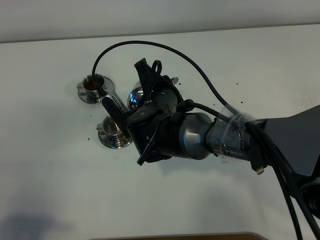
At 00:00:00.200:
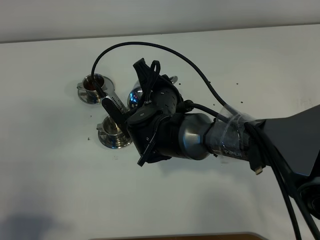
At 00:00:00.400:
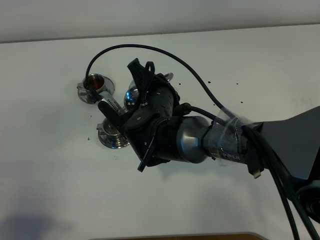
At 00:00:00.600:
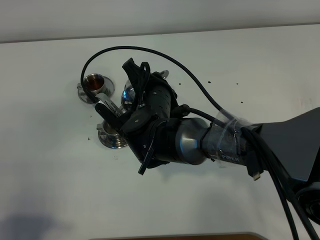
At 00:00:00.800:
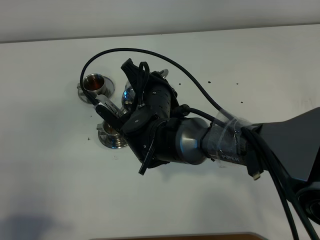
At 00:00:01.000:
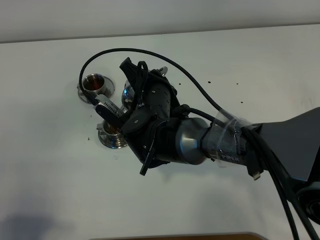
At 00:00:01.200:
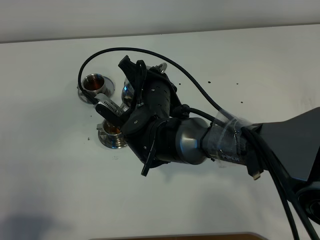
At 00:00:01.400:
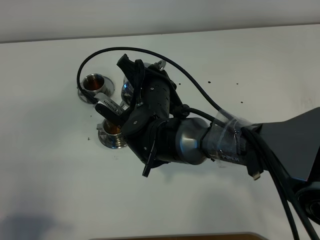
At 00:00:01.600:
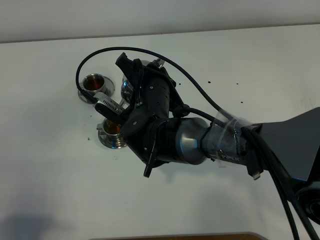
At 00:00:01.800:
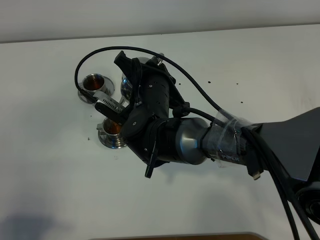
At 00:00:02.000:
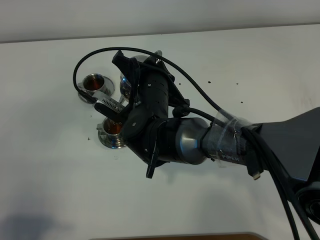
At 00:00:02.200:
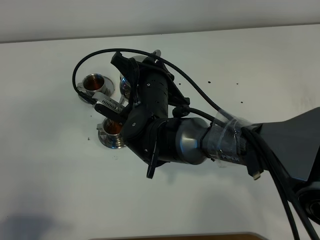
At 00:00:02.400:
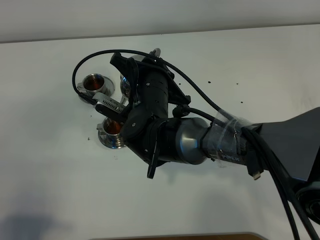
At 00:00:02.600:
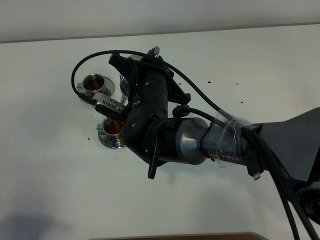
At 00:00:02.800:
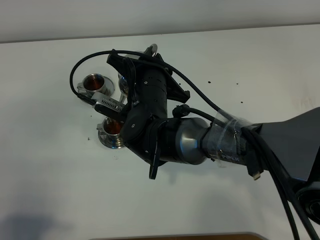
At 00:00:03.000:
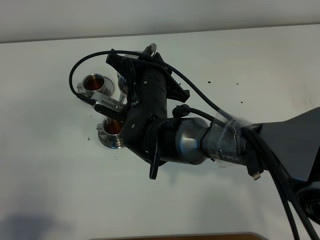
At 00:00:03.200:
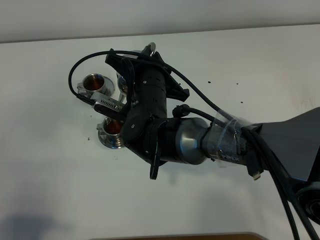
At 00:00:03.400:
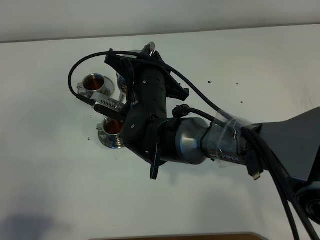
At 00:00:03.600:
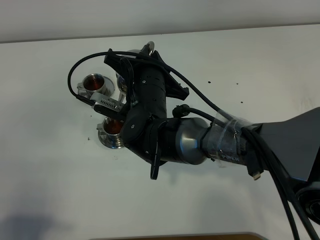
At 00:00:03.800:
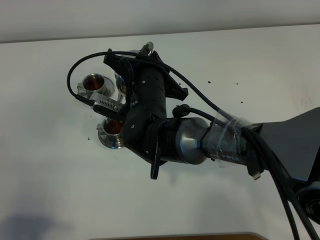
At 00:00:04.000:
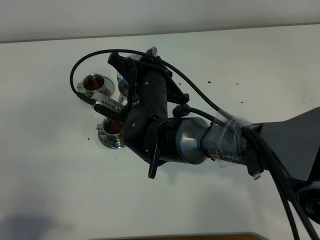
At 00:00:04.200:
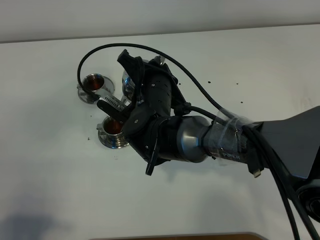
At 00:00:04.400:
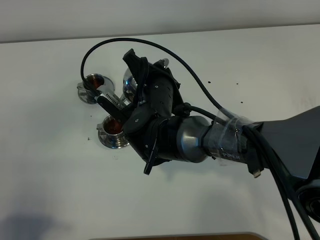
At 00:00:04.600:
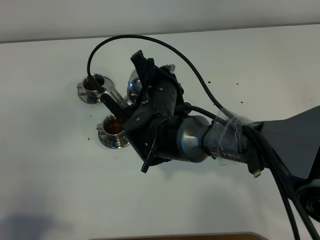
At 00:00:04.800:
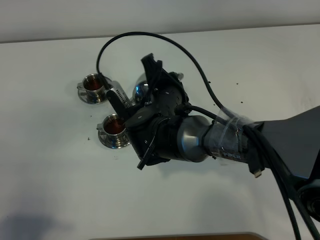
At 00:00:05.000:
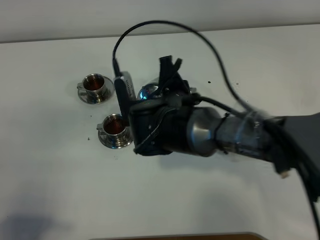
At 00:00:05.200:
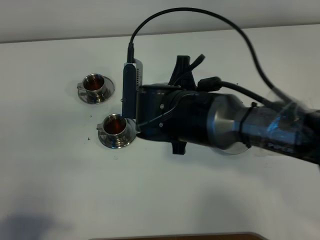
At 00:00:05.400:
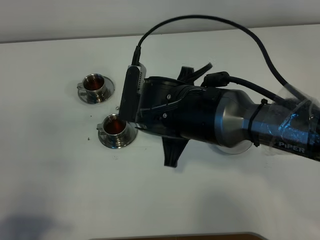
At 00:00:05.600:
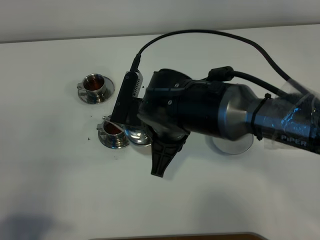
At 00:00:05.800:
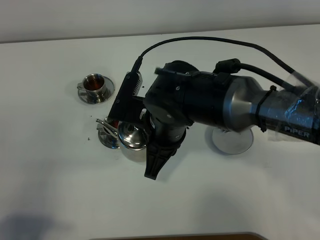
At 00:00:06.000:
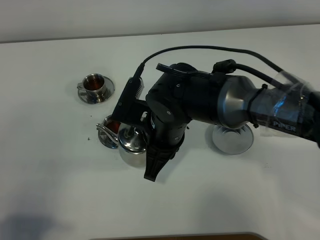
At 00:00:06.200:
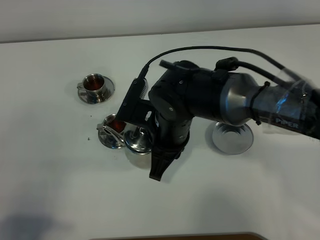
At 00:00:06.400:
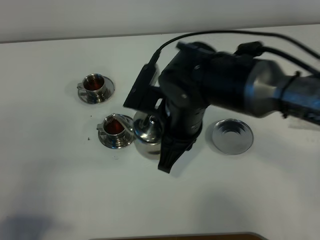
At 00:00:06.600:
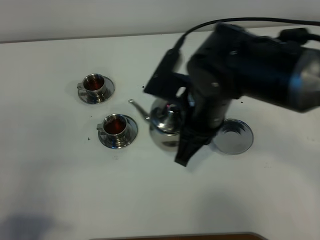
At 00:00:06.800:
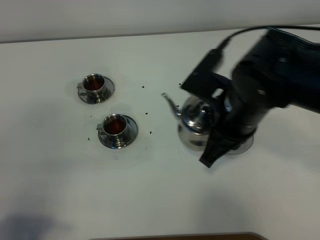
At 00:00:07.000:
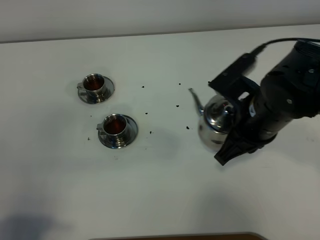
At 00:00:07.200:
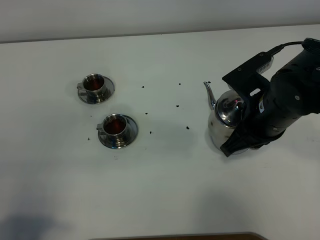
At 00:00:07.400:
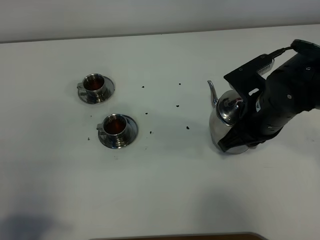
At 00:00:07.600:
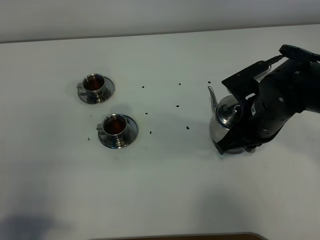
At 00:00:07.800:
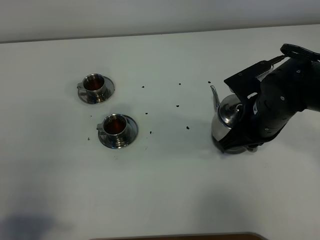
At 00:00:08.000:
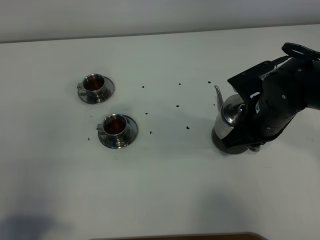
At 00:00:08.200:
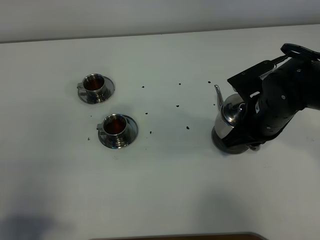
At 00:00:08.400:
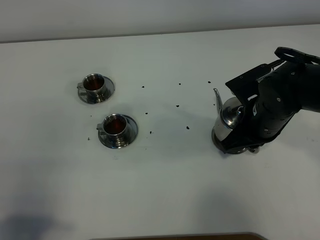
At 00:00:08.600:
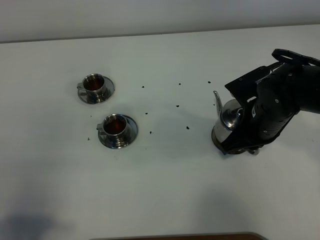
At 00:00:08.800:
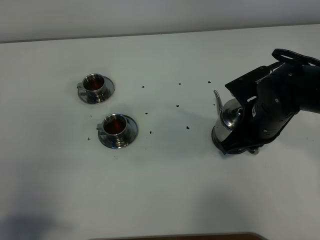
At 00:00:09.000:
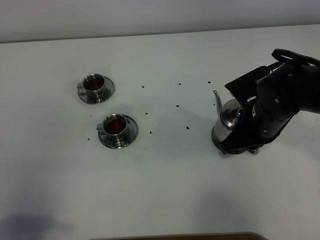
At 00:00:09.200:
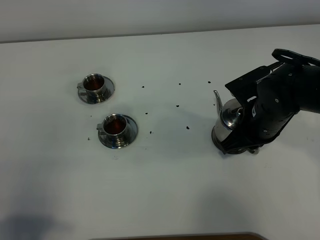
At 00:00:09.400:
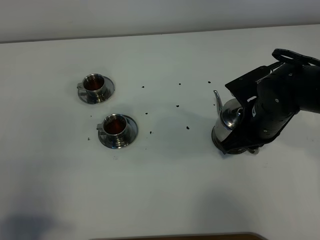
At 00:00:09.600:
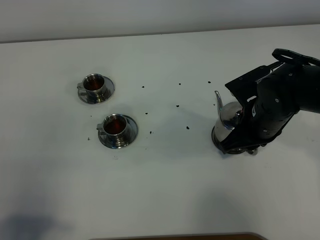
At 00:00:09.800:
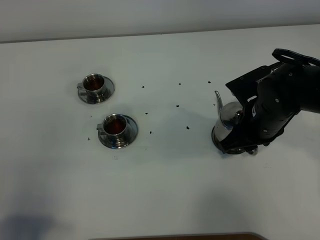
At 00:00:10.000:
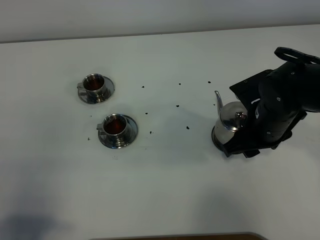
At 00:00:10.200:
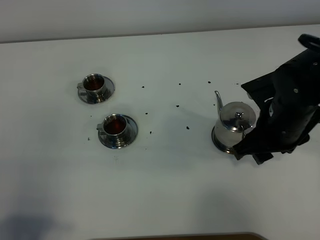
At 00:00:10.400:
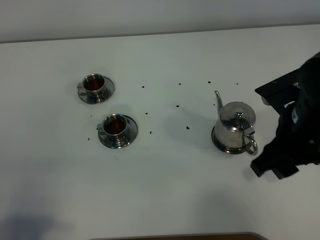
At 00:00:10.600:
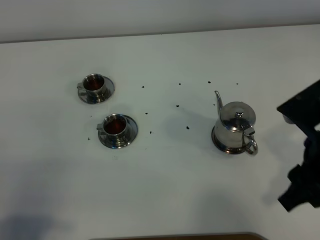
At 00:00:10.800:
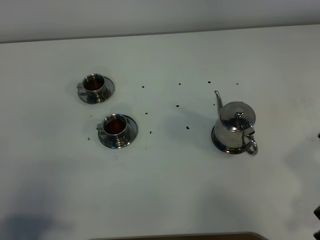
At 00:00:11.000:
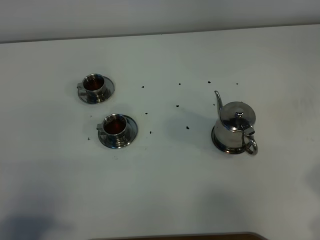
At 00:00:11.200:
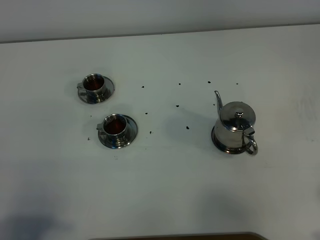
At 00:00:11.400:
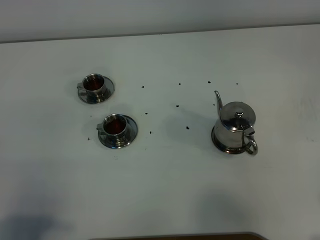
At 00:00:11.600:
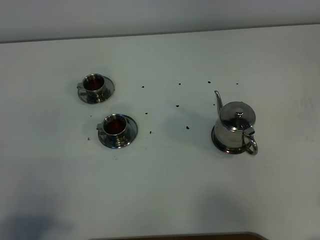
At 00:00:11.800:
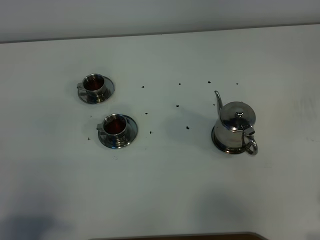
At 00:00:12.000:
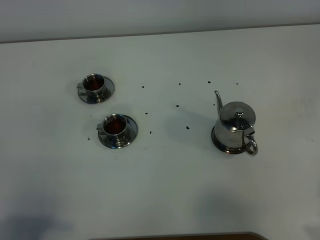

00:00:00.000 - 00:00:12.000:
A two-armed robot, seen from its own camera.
Task of the whole recording: grasp the stainless steel teapot and pour the tea into the two stainless steel teacups one by one, put the stainless steel teapot back in its original place.
Step, 00:00:00.000 - 00:00:05.200: Pour tea into the teacup with the right gripper.
00:00:00.000 - 00:00:01.600: There are only small adjustments of the grippers.
00:00:01.600 - 00:00:04.400: There are only small adjustments of the grippers.
00:00:06.000 - 00:00:07.600: The right gripper goes about 15 cm to the right.
00:00:07.600 - 00:00:09.000: The grippers move only a little.
00:00:09.000 - 00:00:10.400: The right gripper is displaced upward and backward by about 10 cm, and opens.
00:00:10.400 - 00:00:12.000: The right gripper goes approximately 20 cm backward and to the right.

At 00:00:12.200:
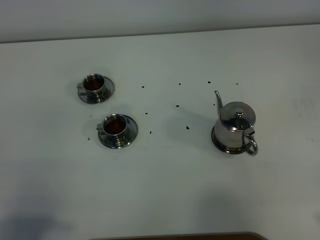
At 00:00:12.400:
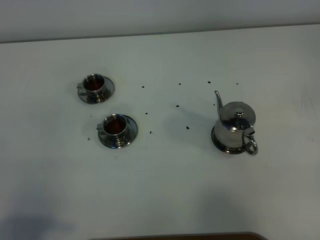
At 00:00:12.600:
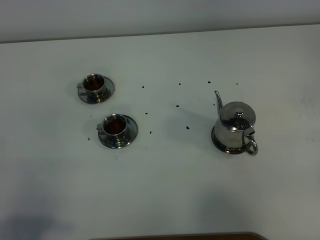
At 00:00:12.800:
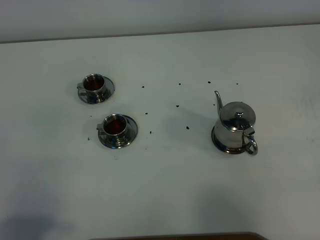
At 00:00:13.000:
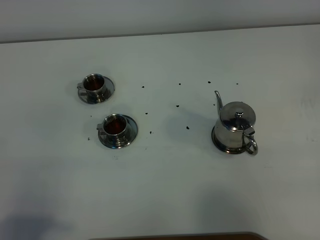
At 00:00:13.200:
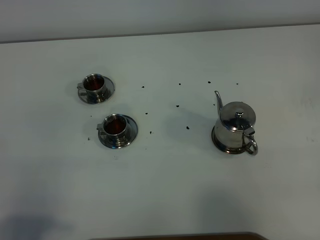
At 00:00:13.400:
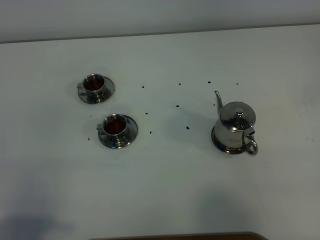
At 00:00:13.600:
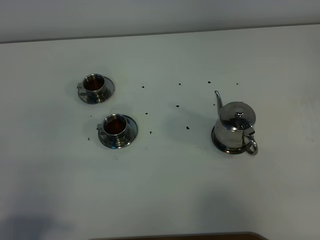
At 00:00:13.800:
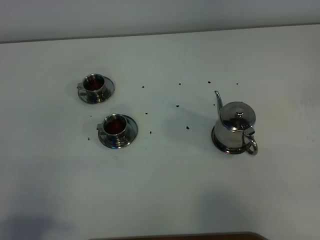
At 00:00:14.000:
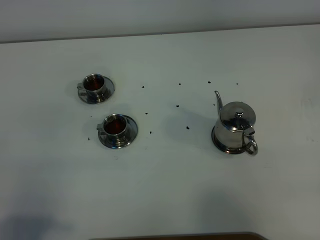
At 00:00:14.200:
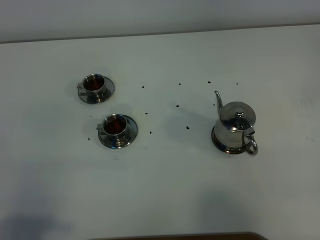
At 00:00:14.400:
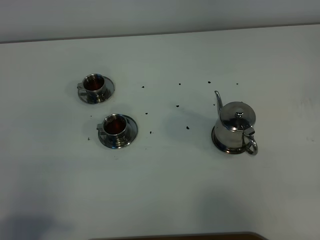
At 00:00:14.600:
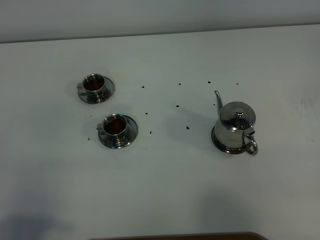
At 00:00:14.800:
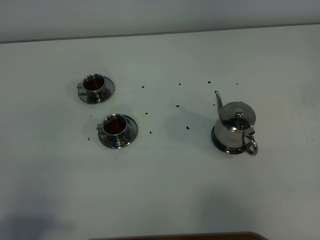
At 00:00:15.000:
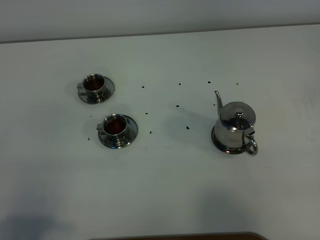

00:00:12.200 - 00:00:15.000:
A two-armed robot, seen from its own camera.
Task of the whole recording: grasp the stainless steel teapot and pour the tea into the two stainless steel teacups one by one, put the stainless steel teapot back in its original place.
00:00:13.600 - 00:00:15.000: Neither gripper changes place.
